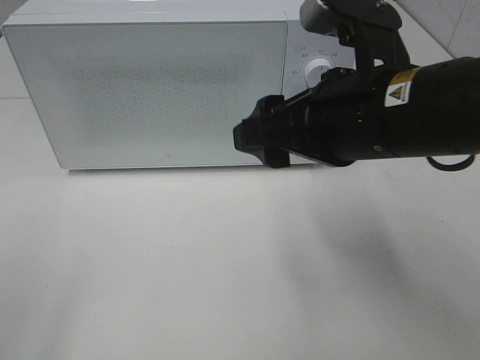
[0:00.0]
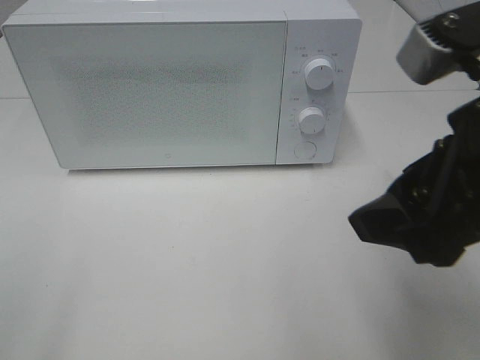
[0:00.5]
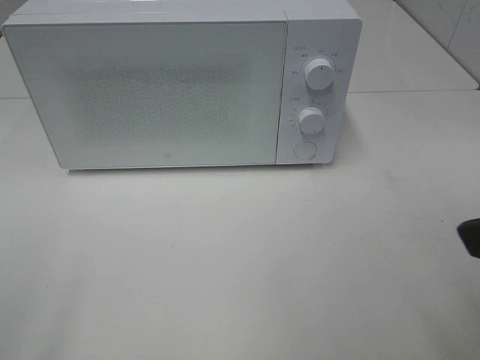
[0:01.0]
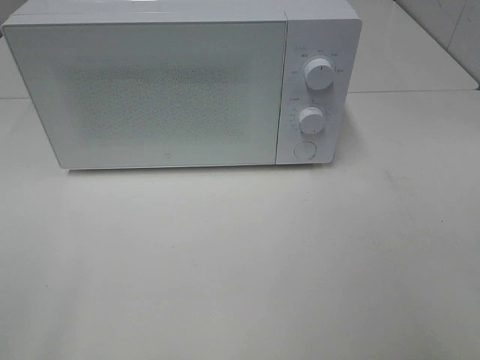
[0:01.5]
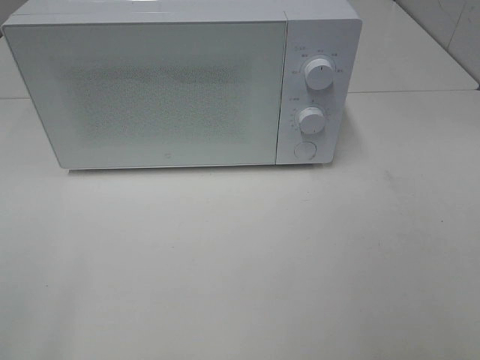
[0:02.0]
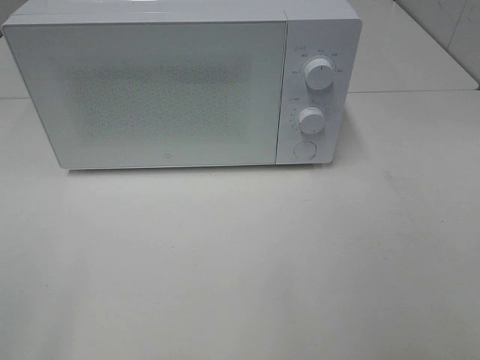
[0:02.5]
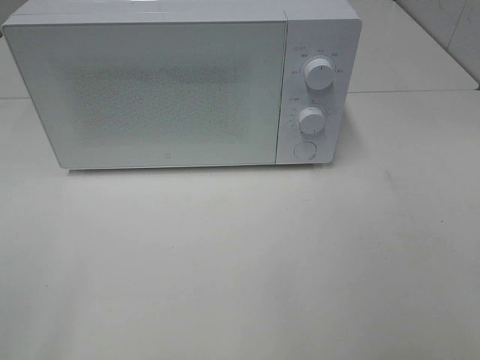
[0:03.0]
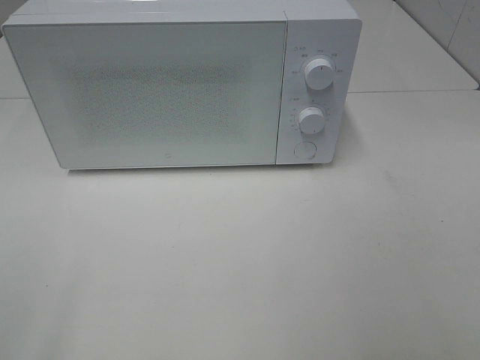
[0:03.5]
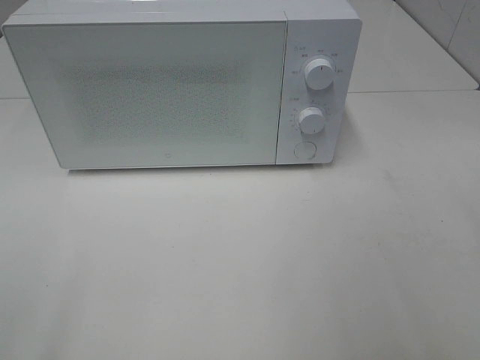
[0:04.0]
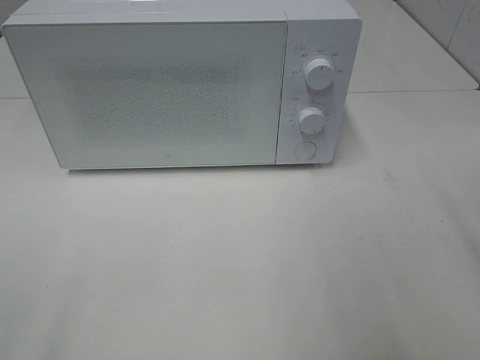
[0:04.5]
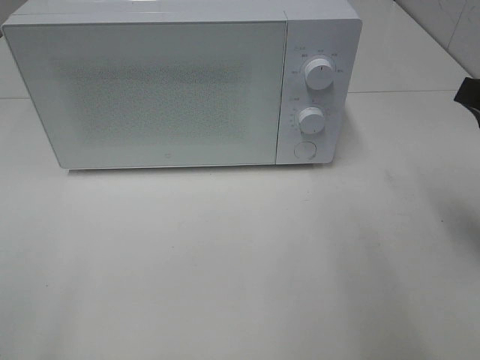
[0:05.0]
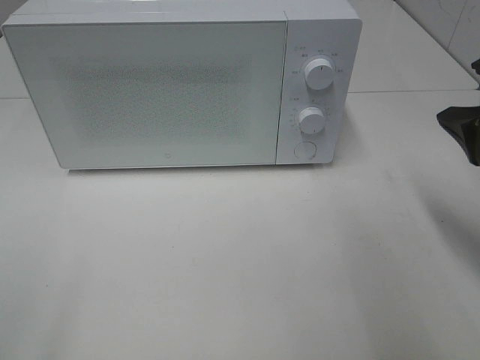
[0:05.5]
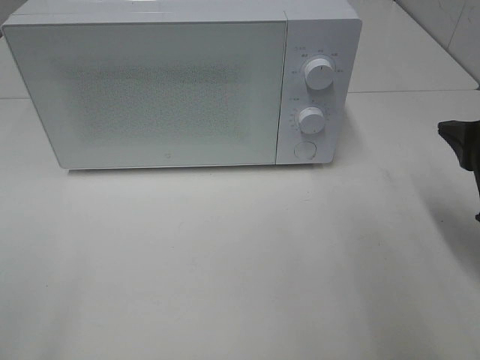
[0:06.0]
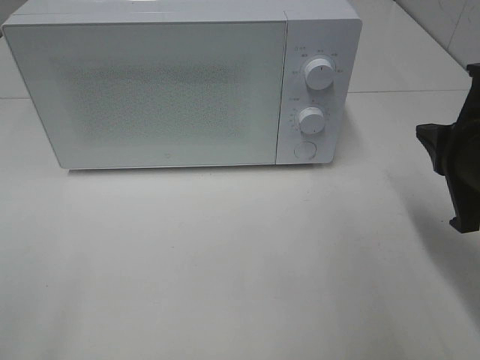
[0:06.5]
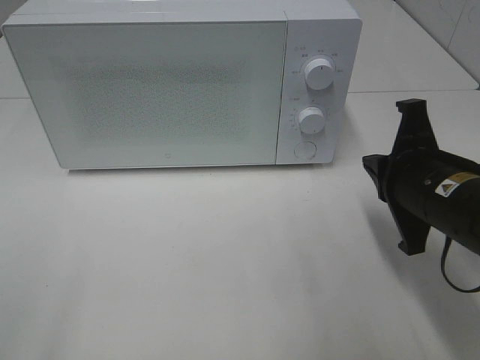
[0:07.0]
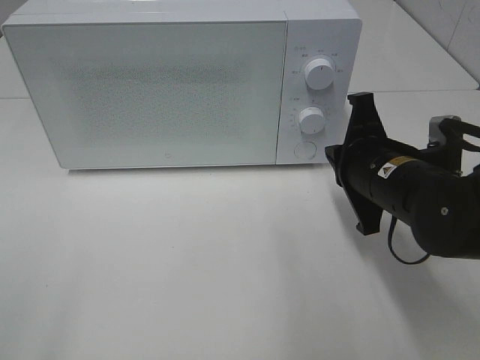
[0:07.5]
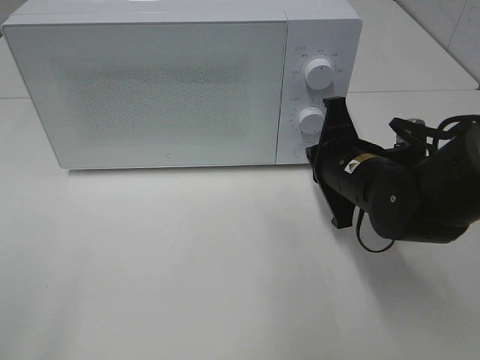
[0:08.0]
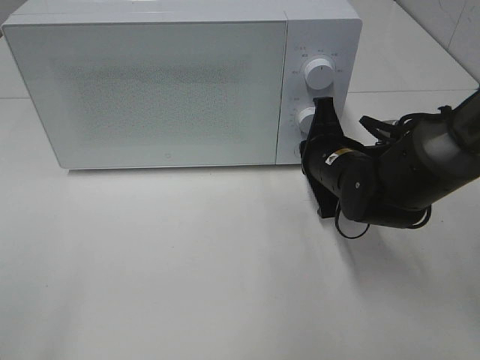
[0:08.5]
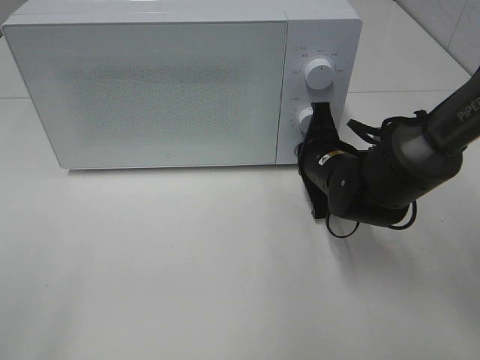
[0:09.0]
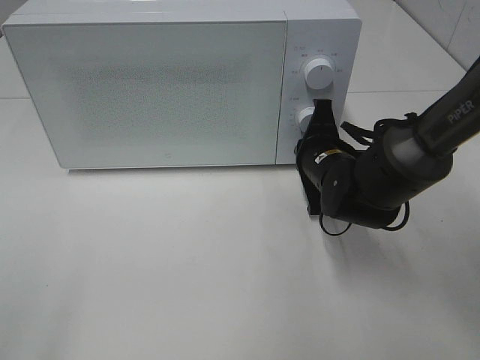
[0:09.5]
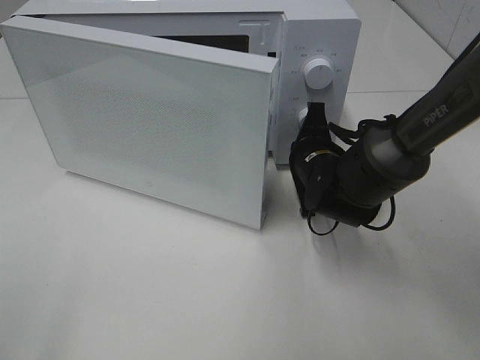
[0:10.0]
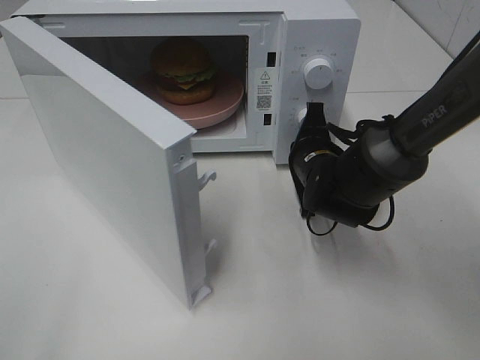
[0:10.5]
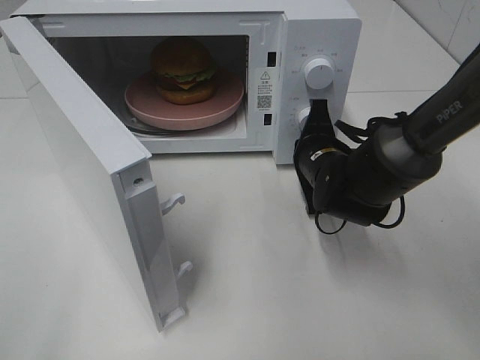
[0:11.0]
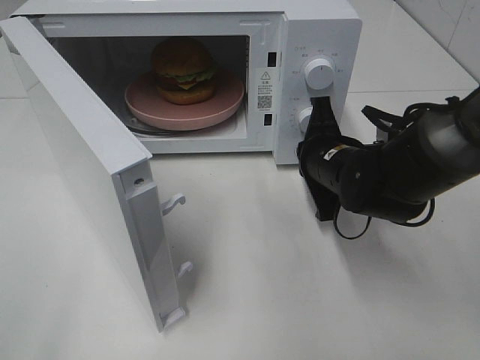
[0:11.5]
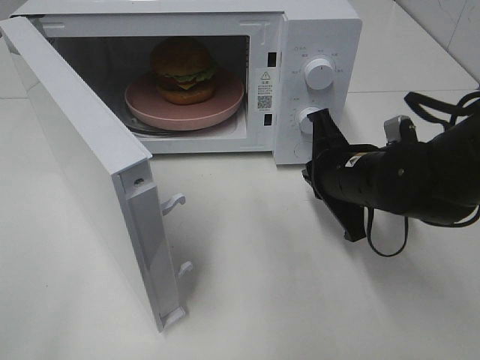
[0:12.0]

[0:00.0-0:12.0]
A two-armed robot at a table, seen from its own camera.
Task of the whole recording: Heat the burger.
Step, 0:00.0 to 0:11.0: Right hand: press the switch.
0:00.0 to 0:02.0: The right gripper is displaced backward and to the right by some 30 cm.
0:04.0 to 0:06.0: The right gripper goes roughly 20 cm forward and downward, and closes its fingers.
0:06.0 to 0:08.0: The right gripper travels to the left, downward and forward by roughly 15 cm.
0:08.0 to 0:10.0: The right gripper travels forward by about 5 cm.
0:10.0 to 0:12.0: The right gripper goes approximately 5 cm backward.

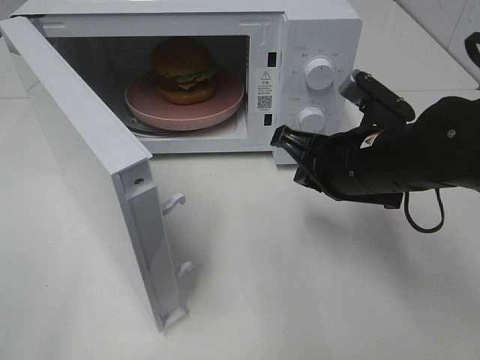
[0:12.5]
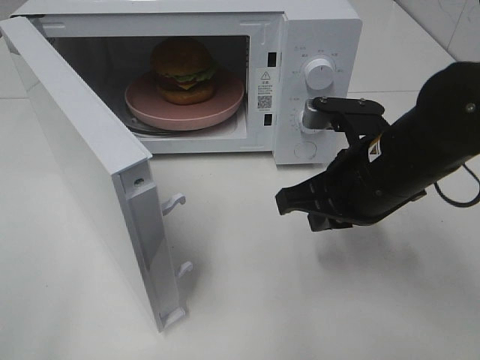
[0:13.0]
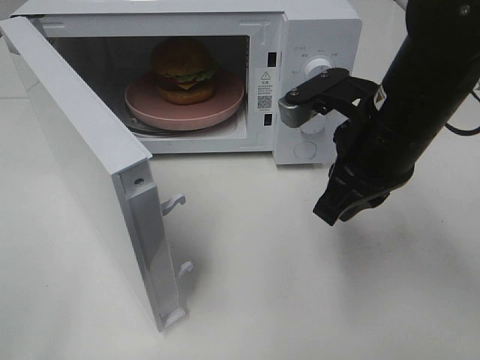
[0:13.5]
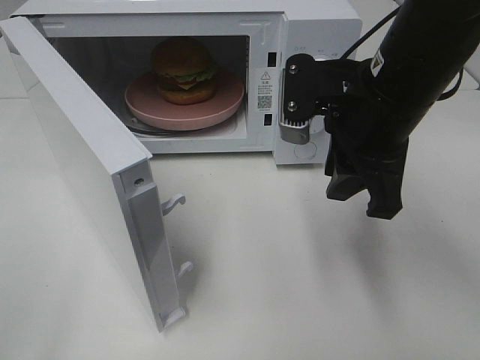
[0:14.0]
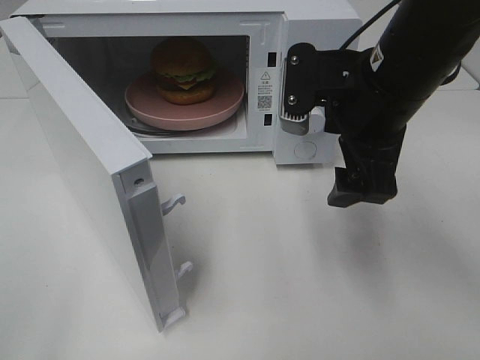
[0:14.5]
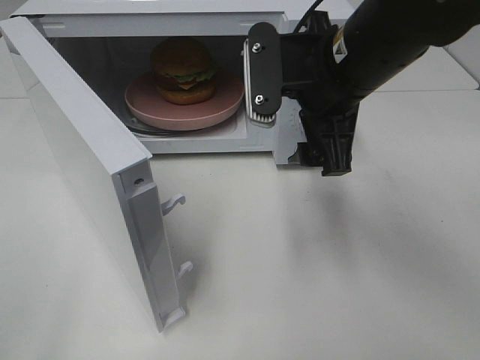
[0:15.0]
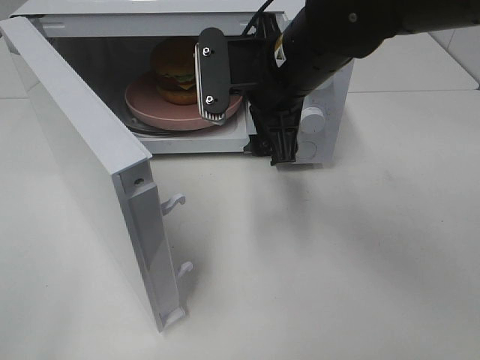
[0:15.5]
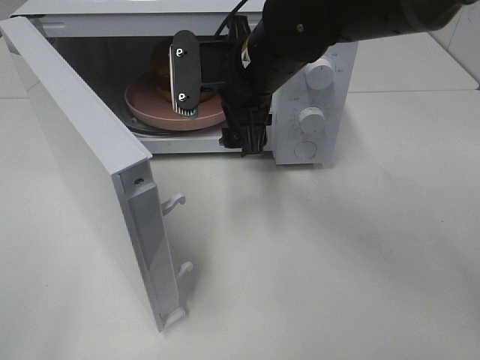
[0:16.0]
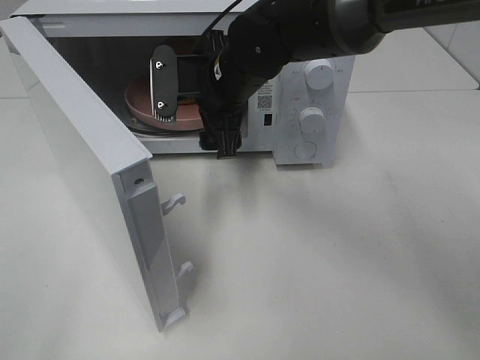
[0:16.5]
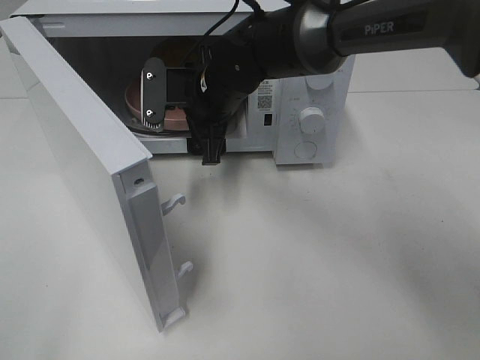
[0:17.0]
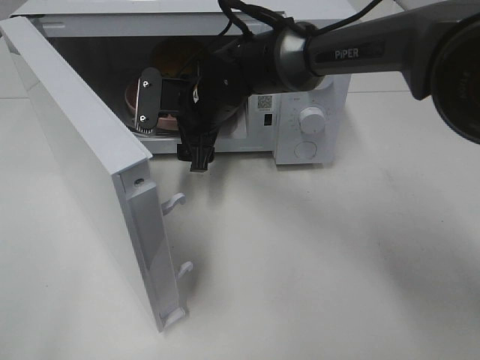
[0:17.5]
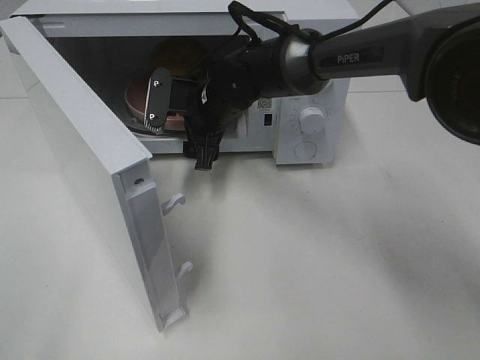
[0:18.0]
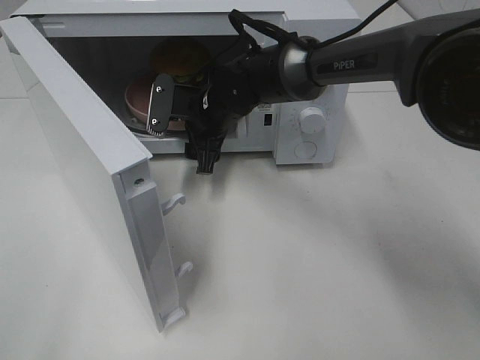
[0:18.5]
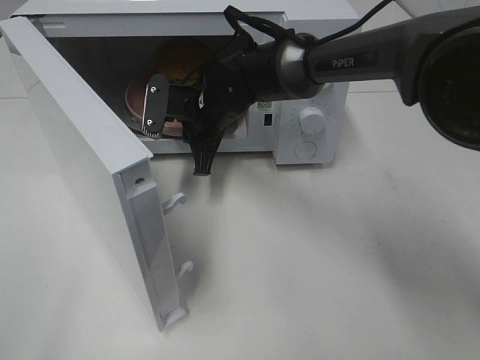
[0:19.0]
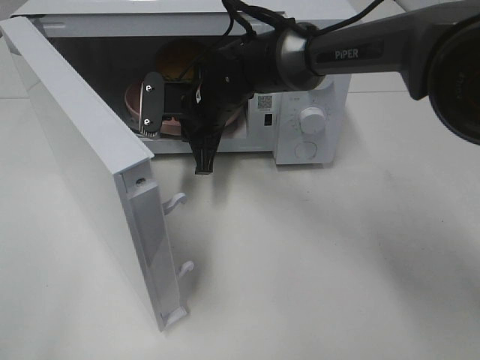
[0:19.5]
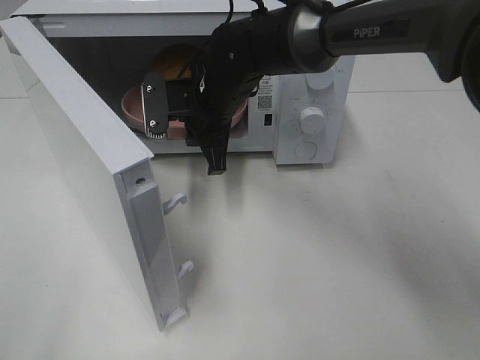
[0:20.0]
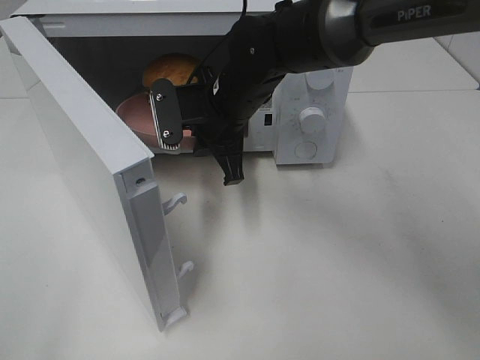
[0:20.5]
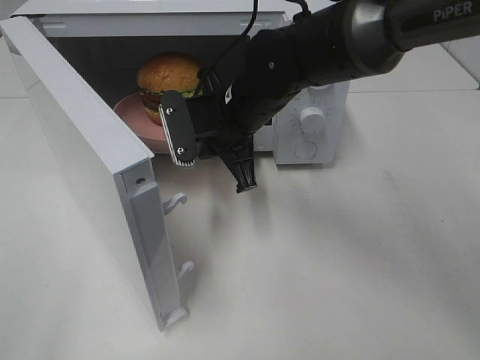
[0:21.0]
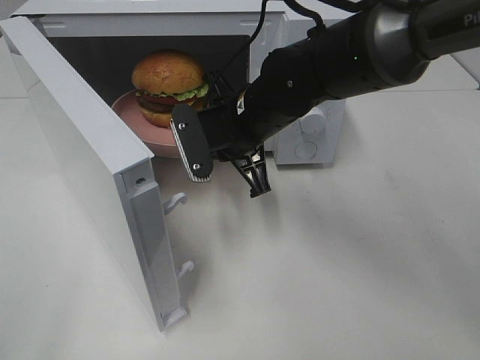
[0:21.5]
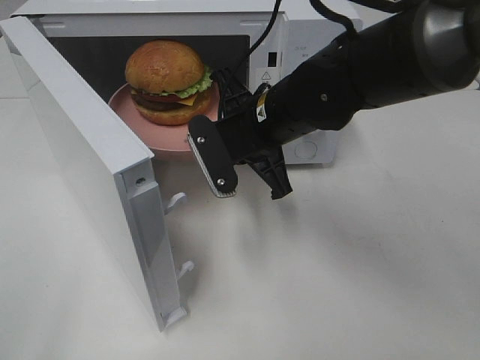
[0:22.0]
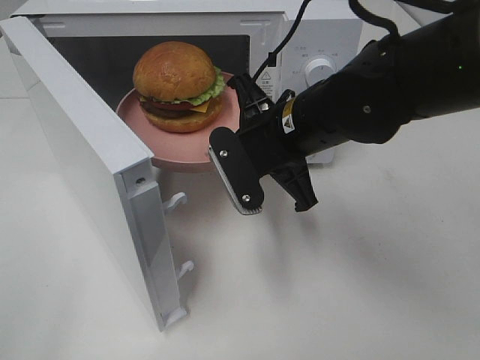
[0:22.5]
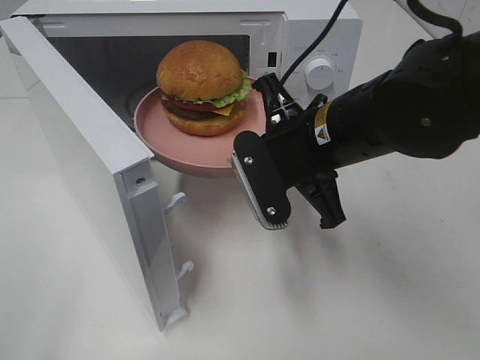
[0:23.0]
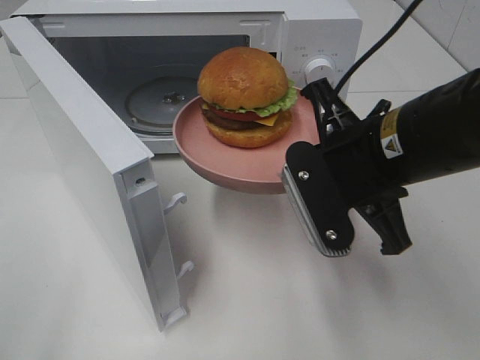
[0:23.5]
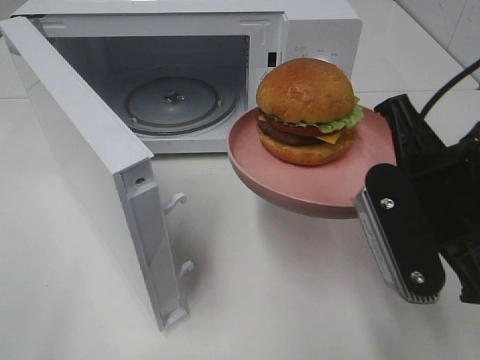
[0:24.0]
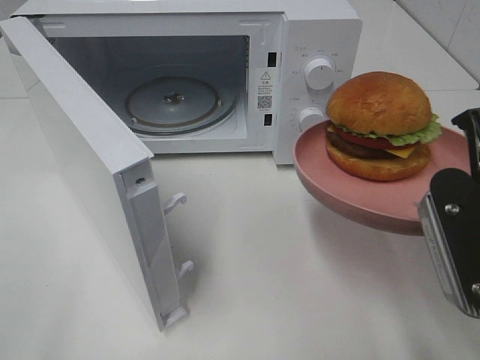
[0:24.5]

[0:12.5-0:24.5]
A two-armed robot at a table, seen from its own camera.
Task of the whole recording: Heat the burger.
Step, 0:12.5 to 0:19.5: Right hand: grab the plate with the hamburger.
0:12.5 to 0:14.5: The right gripper heads upward, covering roughly 10 cm, and opens.
0:14.5 to 0:16.5: The right gripper moves to the left, forward and downward, some 20 cm.
0:16.5 to 0:18.5: The right gripper is displaced downward by some 5 cm.
0:18.5 to 0:20.5: The right gripper moves backward, roughly 5 cm, and closes its fingers.
0:20.5 to 0:22.5: The right gripper heads backward and to the right, covering roughly 10 cm.
0:22.5 to 0:24.5: The right gripper travels backward and to the right by some 20 cm.

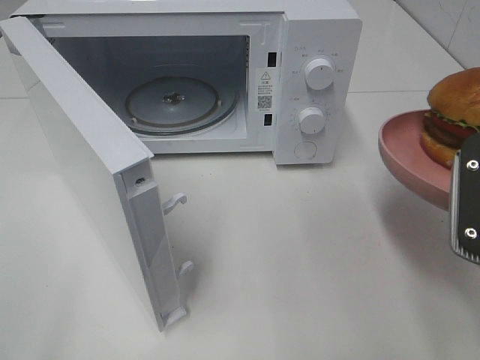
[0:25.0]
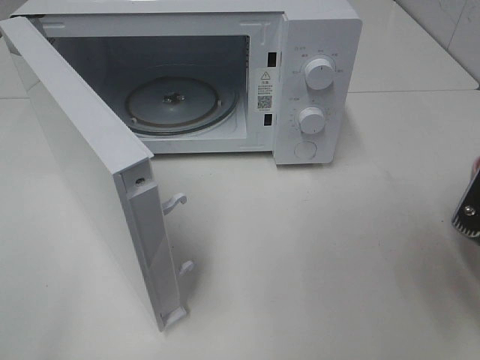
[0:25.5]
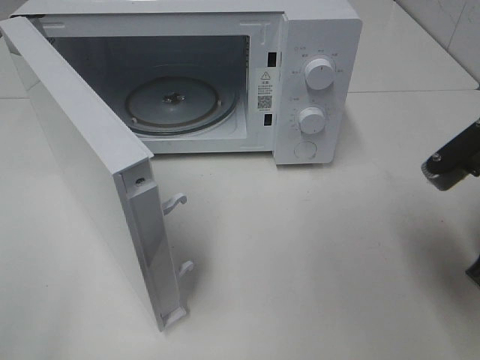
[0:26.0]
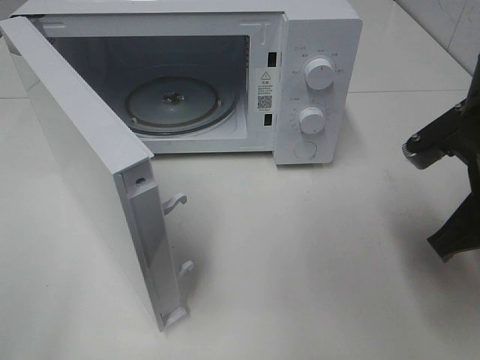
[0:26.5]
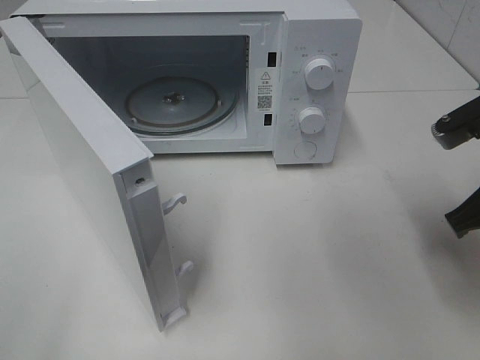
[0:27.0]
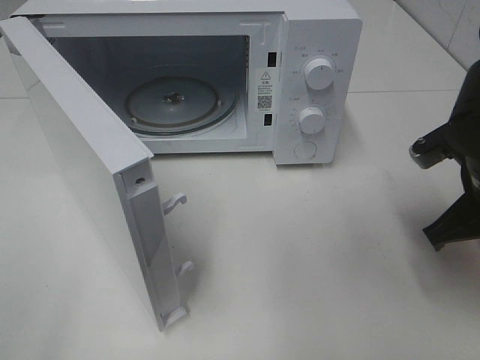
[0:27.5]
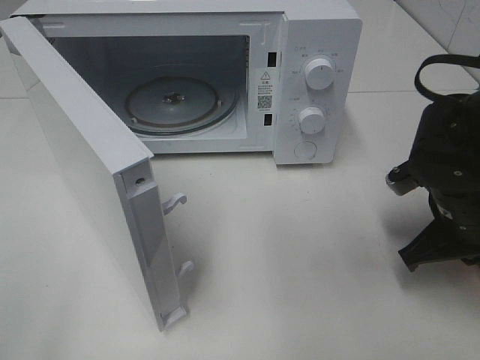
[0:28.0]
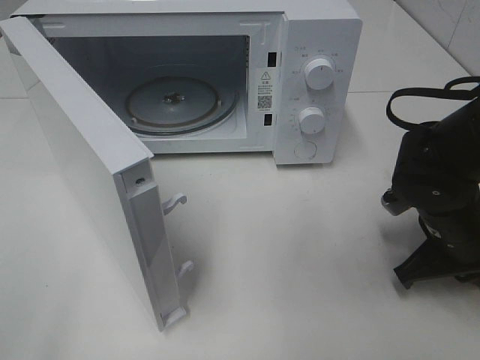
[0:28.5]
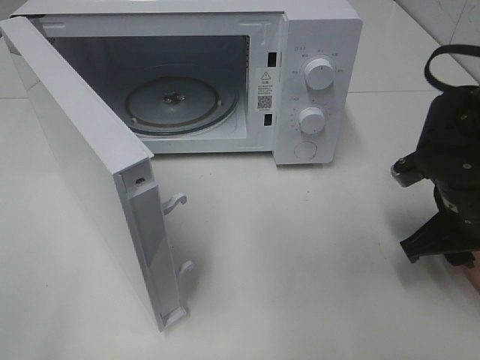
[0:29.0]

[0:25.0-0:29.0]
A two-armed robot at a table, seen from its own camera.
Task of the whole recording: Heat the burger.
Step, 0:25.0 to 0:28.5: Right hand: place the plate on the table.
0:25.0 to 0:27.0: The right gripper goes about 5 cm forward.
0:27.0 to 0:29.0: The right gripper goes about 5 cm downward, and opens its fingers.
